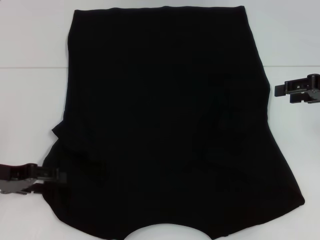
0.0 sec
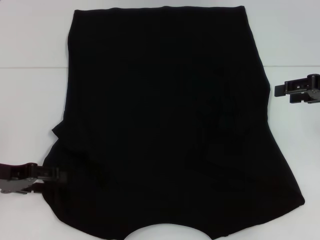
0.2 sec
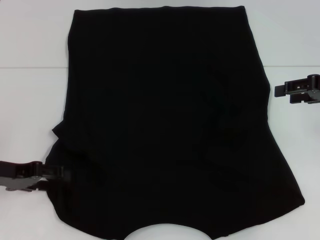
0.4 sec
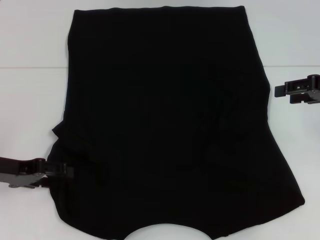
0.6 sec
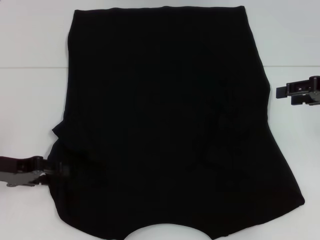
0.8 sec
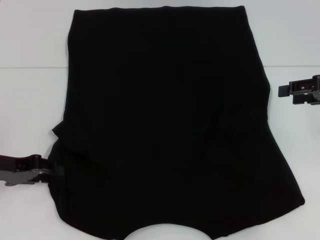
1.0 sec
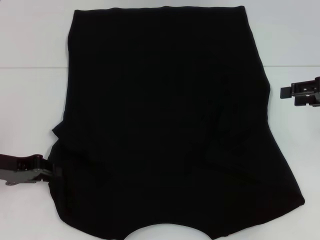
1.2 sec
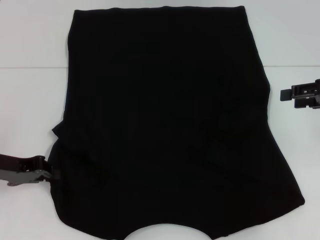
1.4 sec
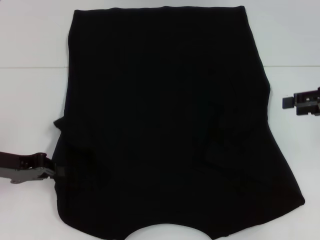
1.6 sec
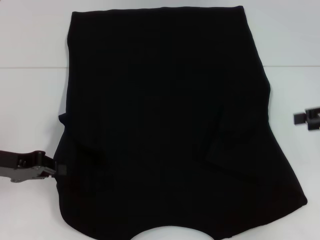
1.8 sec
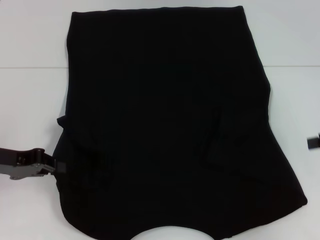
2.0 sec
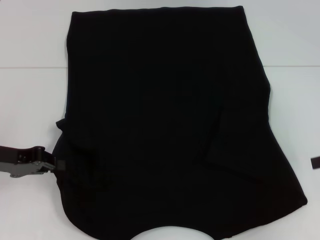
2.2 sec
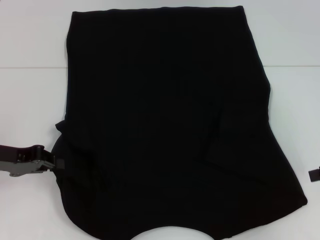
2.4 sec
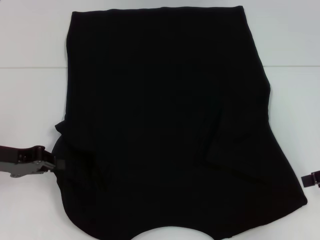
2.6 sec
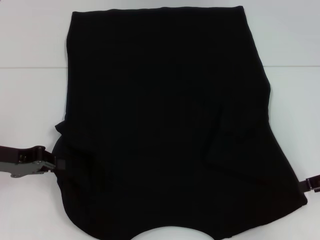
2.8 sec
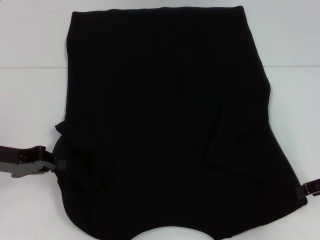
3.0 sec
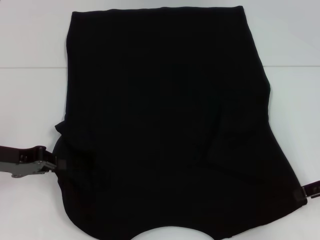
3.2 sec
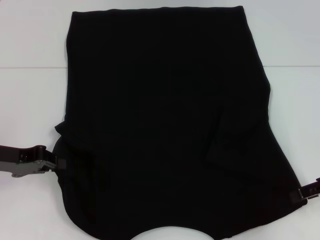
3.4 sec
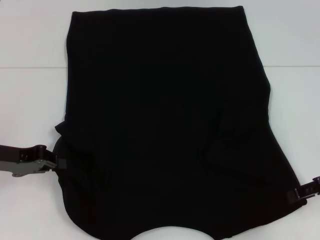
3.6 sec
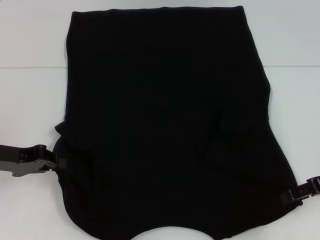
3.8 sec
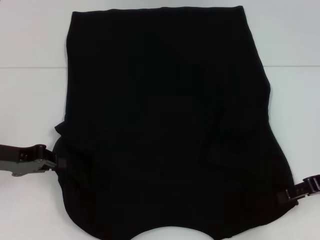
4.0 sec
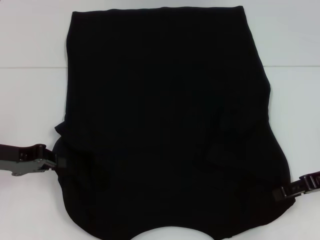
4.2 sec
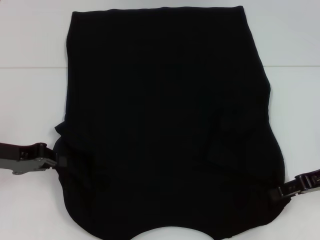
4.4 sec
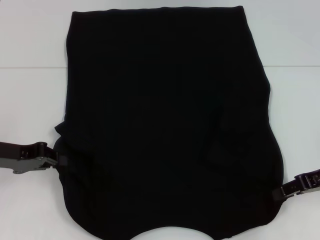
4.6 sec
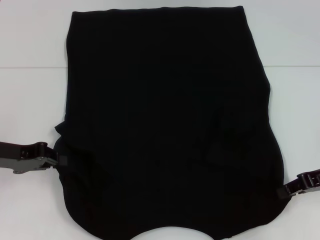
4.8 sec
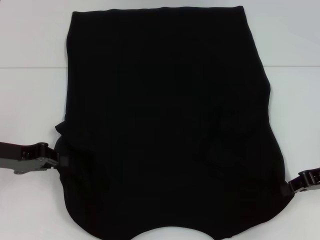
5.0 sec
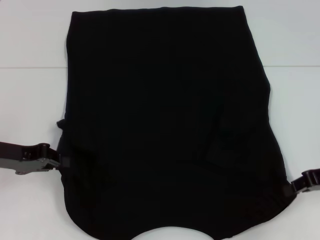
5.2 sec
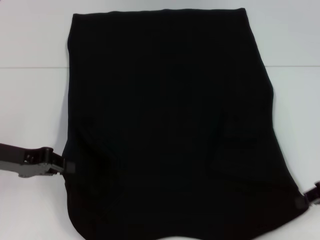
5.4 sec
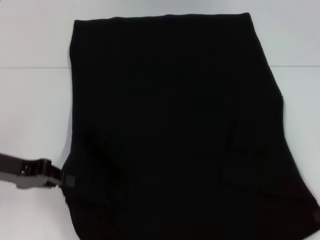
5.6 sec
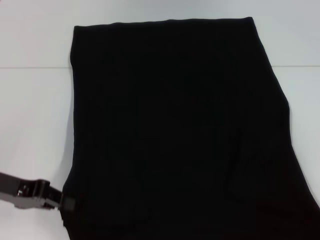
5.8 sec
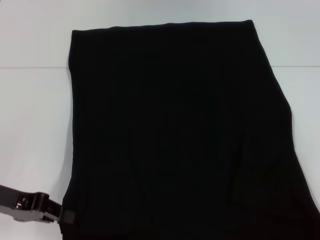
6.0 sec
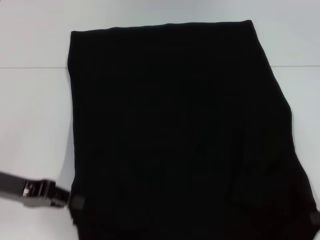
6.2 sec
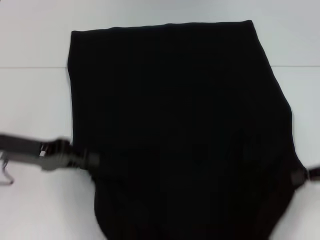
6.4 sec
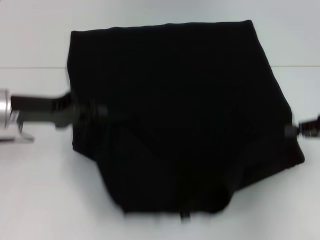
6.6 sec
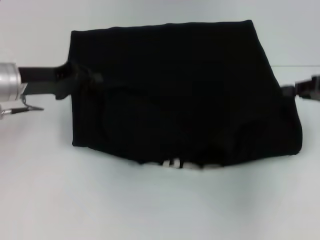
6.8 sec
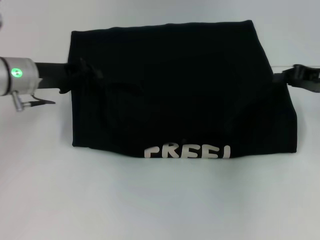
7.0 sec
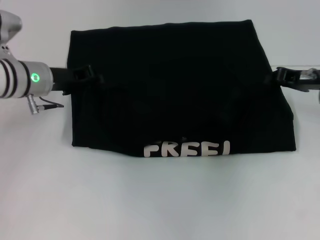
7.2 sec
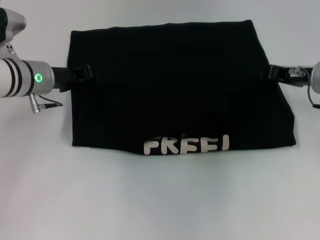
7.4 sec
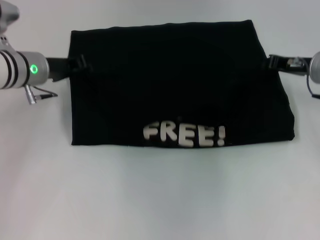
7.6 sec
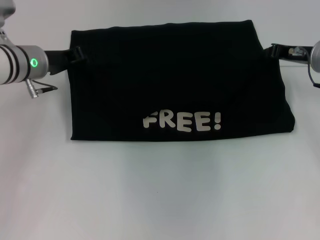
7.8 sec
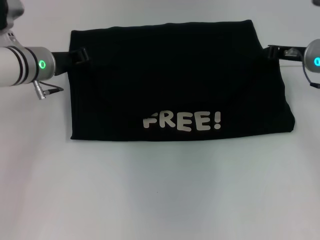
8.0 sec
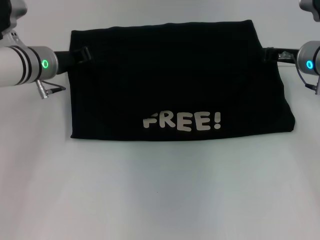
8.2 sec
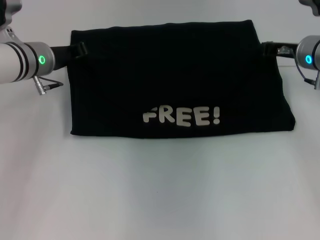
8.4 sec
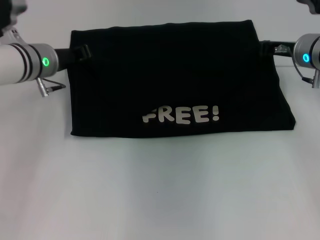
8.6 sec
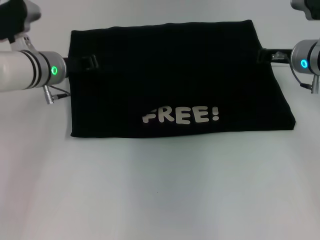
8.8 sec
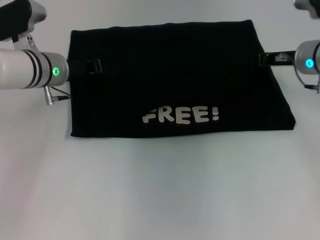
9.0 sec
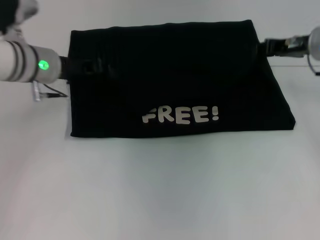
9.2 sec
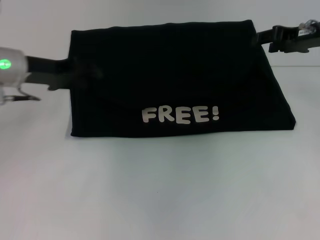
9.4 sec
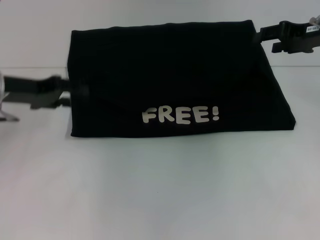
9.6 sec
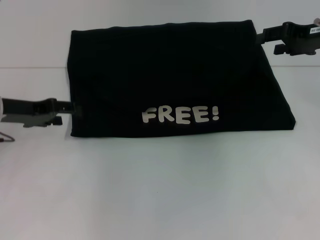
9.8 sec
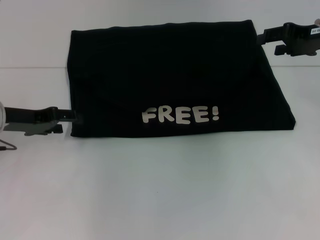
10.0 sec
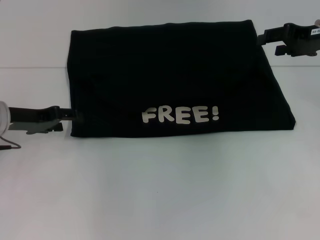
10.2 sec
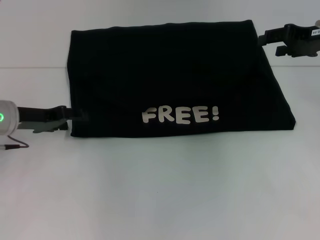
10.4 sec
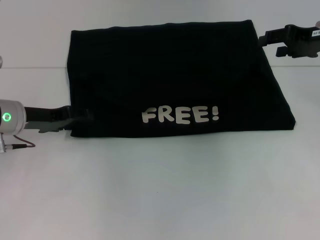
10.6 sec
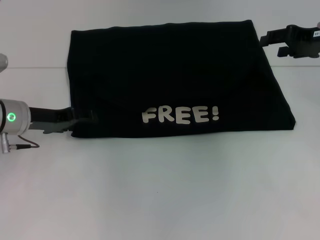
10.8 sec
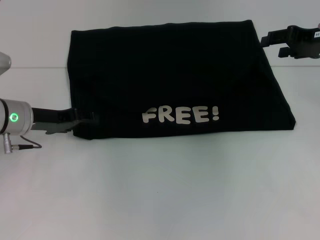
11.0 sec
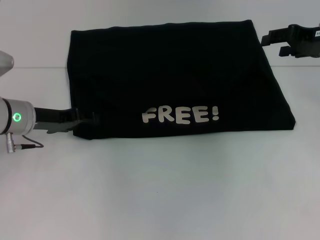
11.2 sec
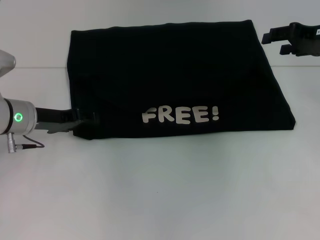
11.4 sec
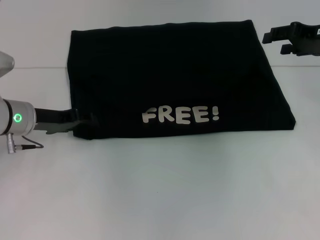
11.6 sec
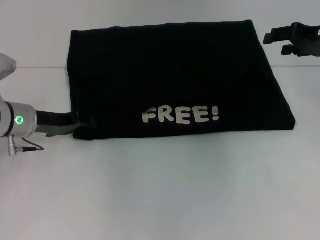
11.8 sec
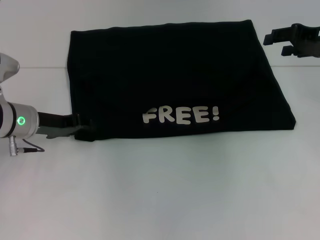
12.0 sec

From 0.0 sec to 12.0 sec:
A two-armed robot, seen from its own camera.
Step, from 1.6 sec to 4.8 sec: Grab the bottom right corner with your right hand.
Step, from 5.0 sec to 9.2 sec: Fold the clothes with your left hand.
Step, from 5.0 sec to 9.2 sec: Fold the clothes with your right hand.
From 0.0 sec to 1.6 sec: The left gripper closes.
From 1.6 sec to 3.0 sec: The right gripper shifts some 5 cm downward.
From 3.0 sec to 4.4 sec: The grippers make only small movements.
From 4.4 sec to 6.0 sec: The right gripper moves backward and to the right, roughly 10 cm, and closes.
From 6.0 sec to 7.6 sec: The right gripper goes some 20 cm forward and to the left; the left gripper heads forward and to the right, covering some 20 cm.
From 7.6 sec to 9.0 sec: There are only small adjustments of the grippers.
From 9.0 sec to 10.4 sec: The right gripper is displaced upward by about 5 cm, and opens. Meanwhile the left gripper travels to the left and backward by about 10 cm, and opens up.
From 10.4 sec to 12.0 sec: The grippers move only a little.

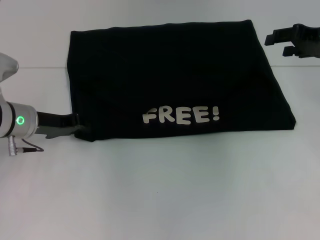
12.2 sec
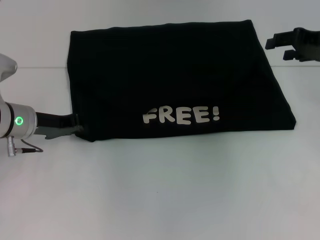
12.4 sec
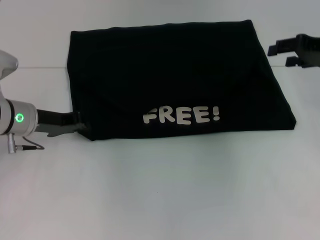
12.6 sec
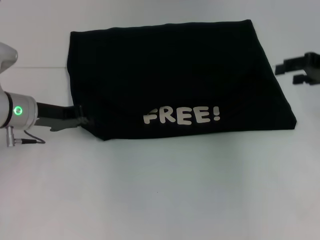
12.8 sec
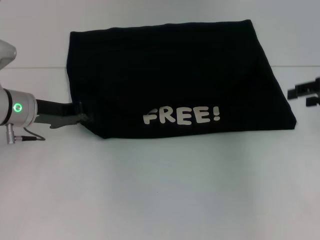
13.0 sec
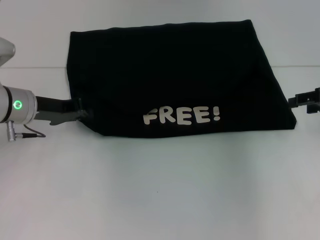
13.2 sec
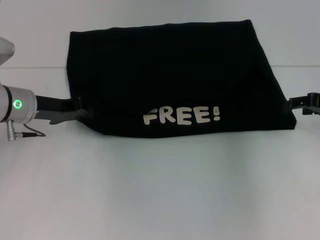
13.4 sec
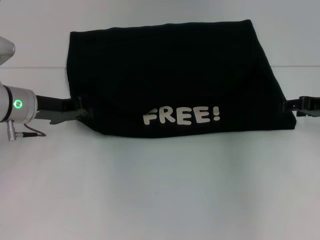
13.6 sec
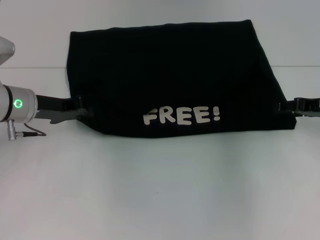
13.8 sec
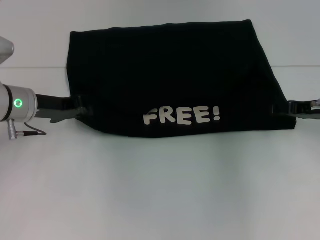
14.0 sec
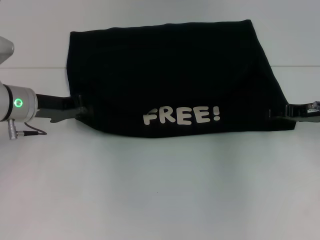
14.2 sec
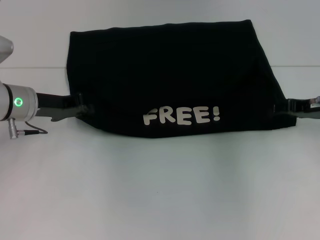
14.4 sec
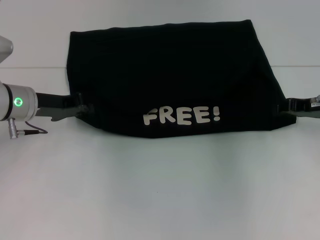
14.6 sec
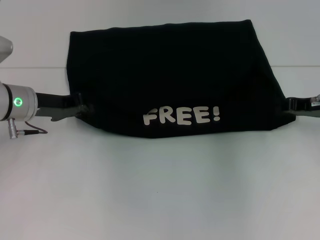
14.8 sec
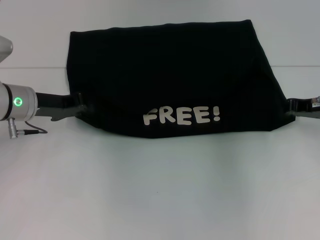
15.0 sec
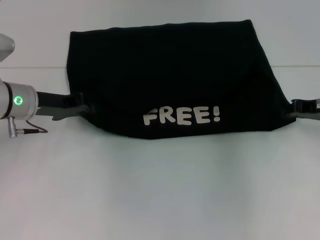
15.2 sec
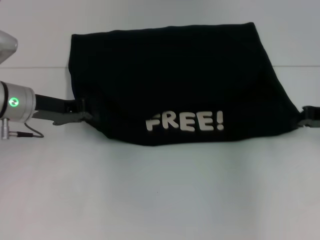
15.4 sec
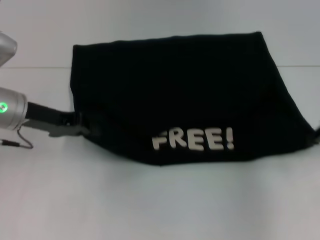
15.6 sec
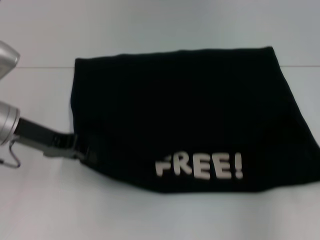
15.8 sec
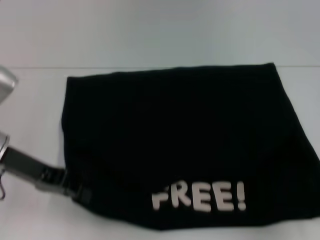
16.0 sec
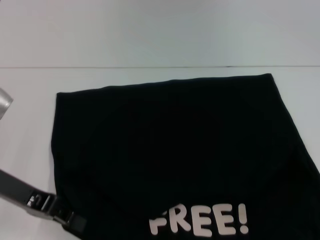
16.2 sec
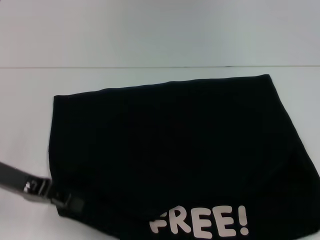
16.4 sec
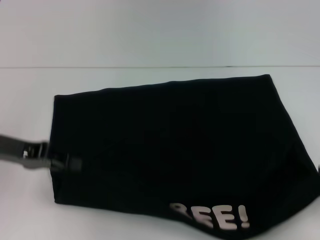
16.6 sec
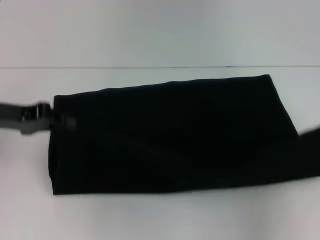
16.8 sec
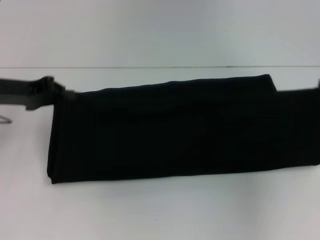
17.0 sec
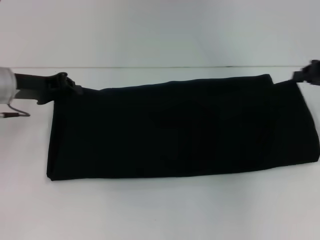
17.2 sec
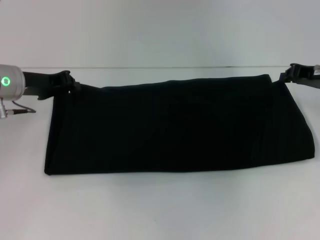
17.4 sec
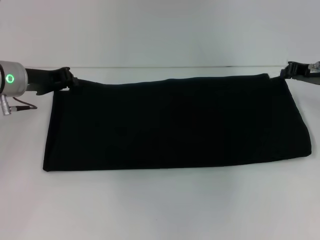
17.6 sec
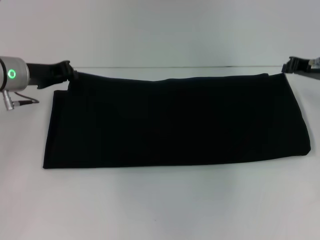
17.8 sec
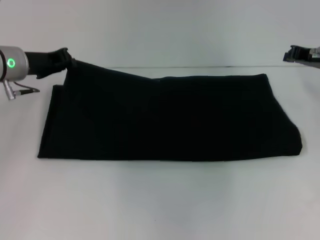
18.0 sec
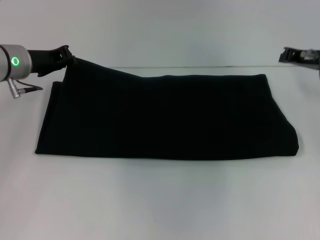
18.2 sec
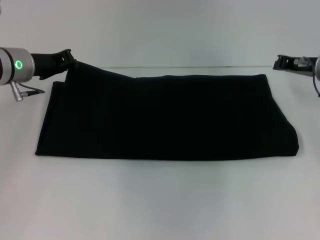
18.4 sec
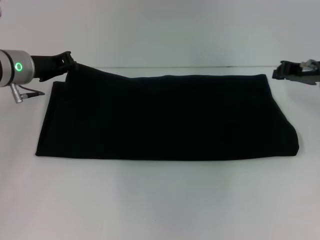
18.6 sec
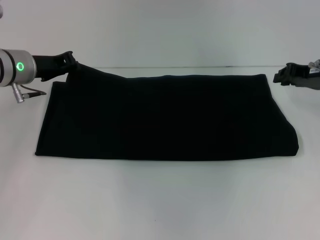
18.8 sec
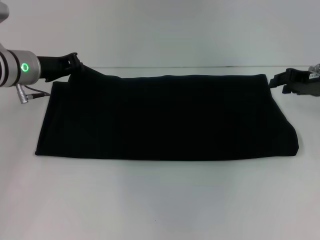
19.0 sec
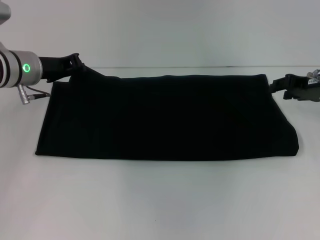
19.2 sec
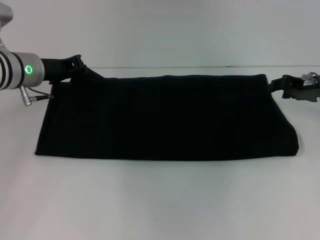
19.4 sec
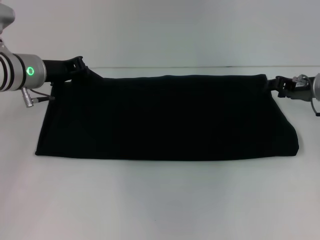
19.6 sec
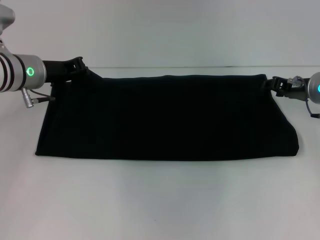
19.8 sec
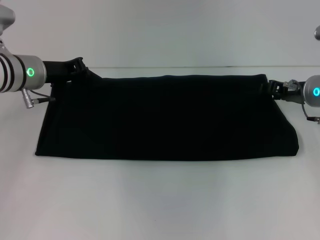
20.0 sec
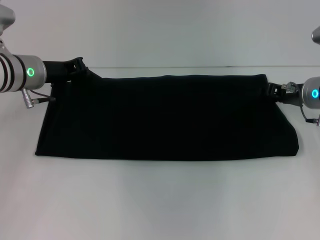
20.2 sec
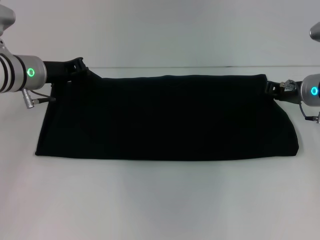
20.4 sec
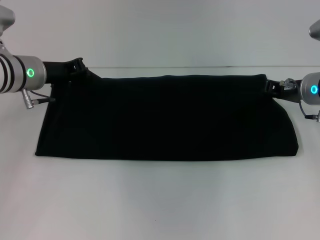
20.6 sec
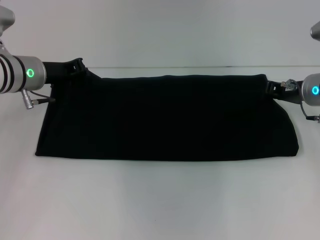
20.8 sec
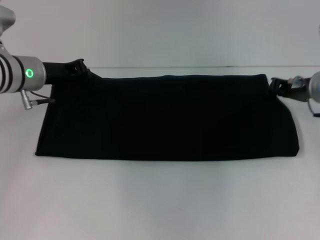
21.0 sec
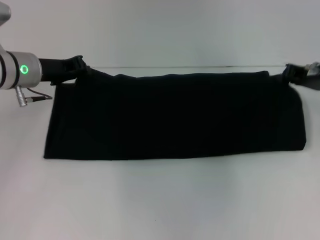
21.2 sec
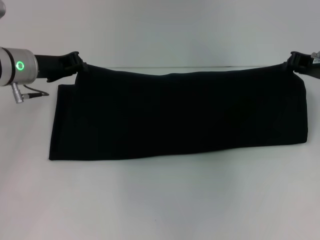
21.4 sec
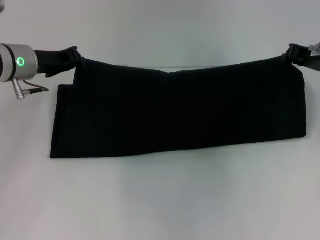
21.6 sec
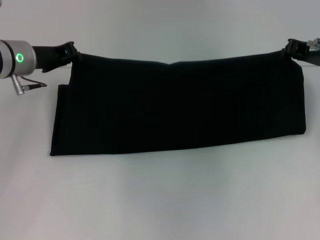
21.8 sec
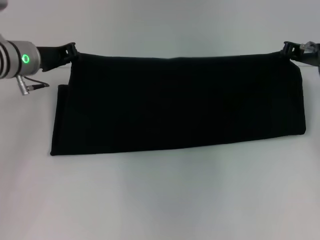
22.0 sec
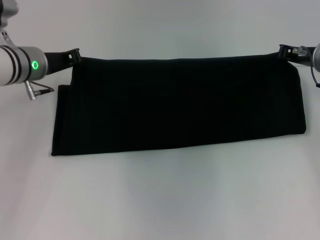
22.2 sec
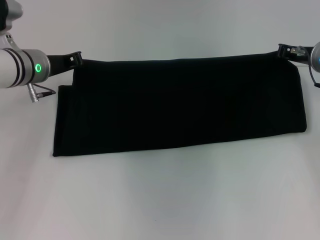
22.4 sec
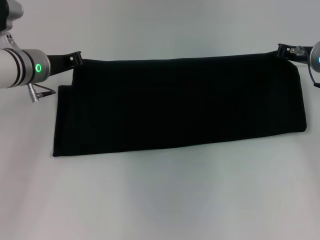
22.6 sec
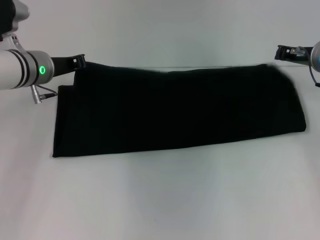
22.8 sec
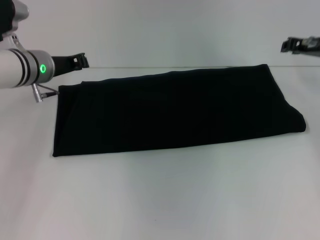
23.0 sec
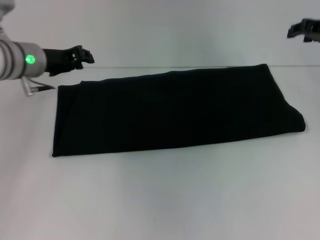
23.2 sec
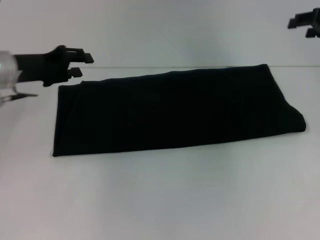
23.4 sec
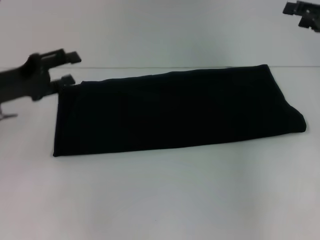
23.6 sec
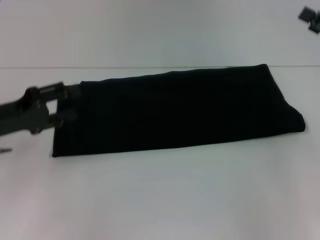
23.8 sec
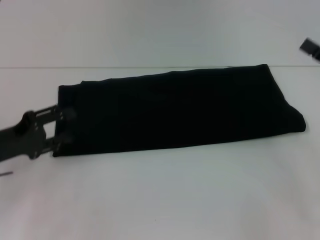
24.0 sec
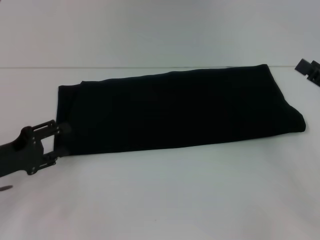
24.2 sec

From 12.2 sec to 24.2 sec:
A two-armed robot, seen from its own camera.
Step, from 12.2 sec to 16.2 sec: Pull the clothes with your left hand.
Step, from 12.2 sec to 16.2 sec: Pull the clothes with your right hand.
Step, from 16.4 sec to 22.8 sec: Fold the clothes with your right hand.
From 12.2 sec to 13.8 sec: The left gripper closes up; the right gripper is displaced downward by some 10 cm.
From 13.8 sec to 15.2 sec: The right gripper closes its fingers.
From 15.2 sec to 16.6 sec: The left gripper travels backward by approximately 10 cm. The right gripper goes about 15 cm backward and to the right.
From 16.6 sec to 18.2 sec: The right gripper goes about 20 cm forward and to the left, while the left gripper moves forward, approximately 15 cm.
From 18.2 sec to 19.8 sec: The right gripper opens its fingers.
From 19.8 sec to 21.2 sec: The right gripper closes.
From 21.2 sec to 22.6 sec: The grippers move only a little.
From 22.6 sec to 24.2 sec: The left gripper travels backward and to the left by some 20 cm, and opens its fingers, while the right gripper travels backward and to the right by some 20 cm, and opens.
